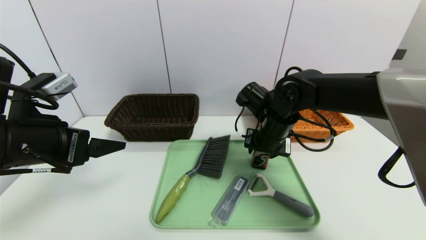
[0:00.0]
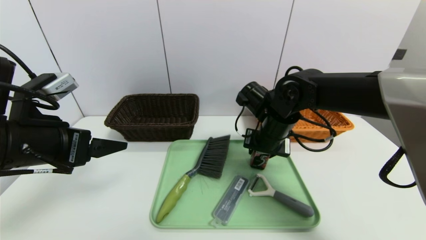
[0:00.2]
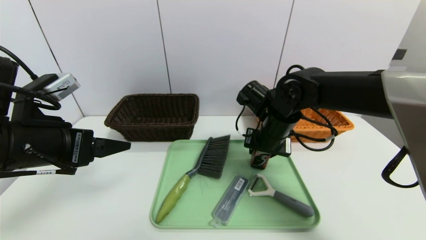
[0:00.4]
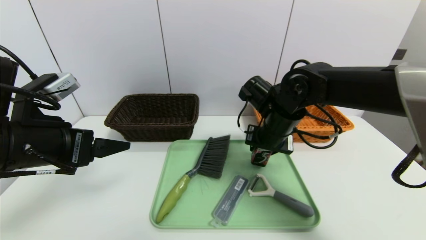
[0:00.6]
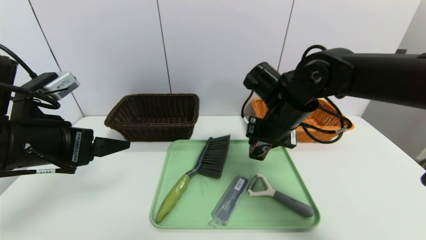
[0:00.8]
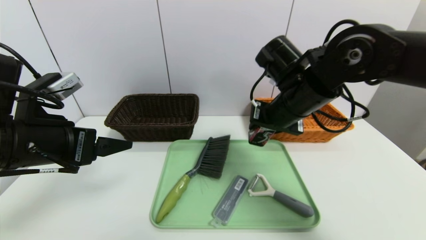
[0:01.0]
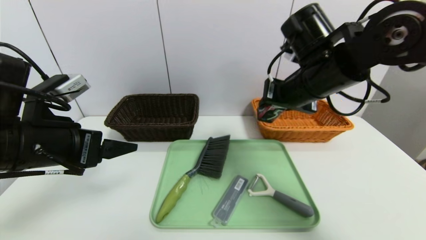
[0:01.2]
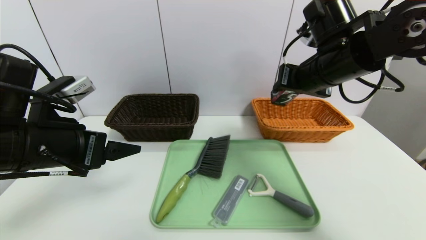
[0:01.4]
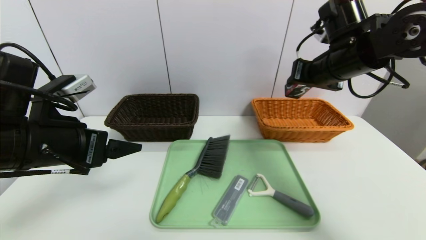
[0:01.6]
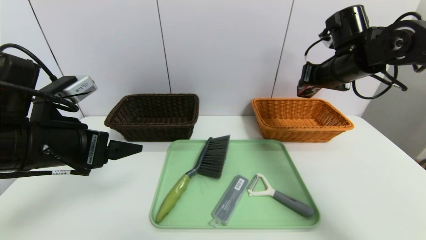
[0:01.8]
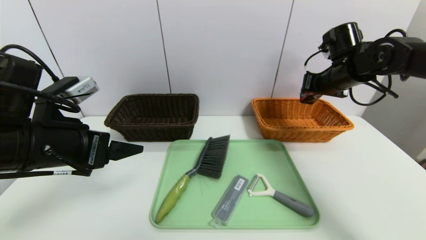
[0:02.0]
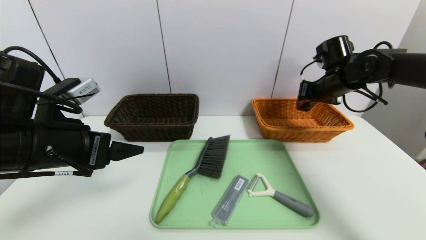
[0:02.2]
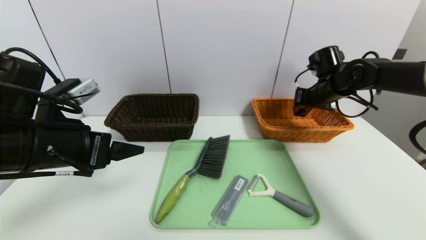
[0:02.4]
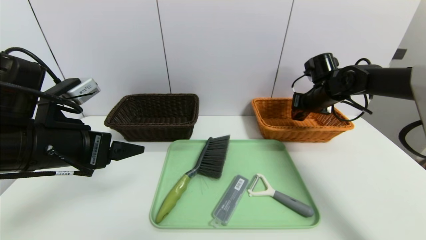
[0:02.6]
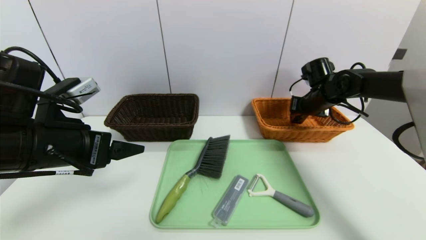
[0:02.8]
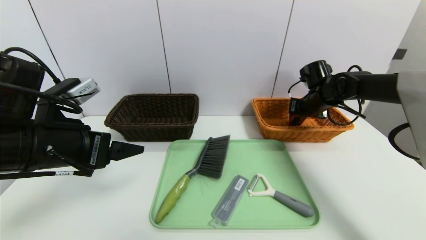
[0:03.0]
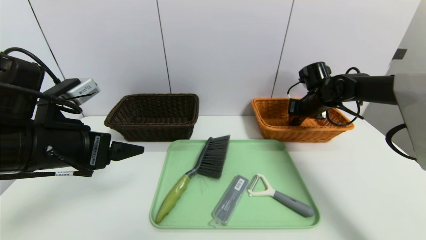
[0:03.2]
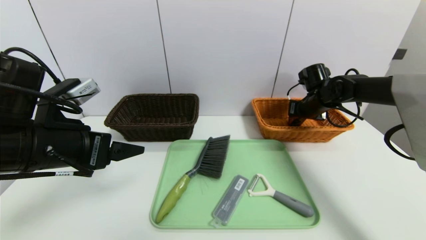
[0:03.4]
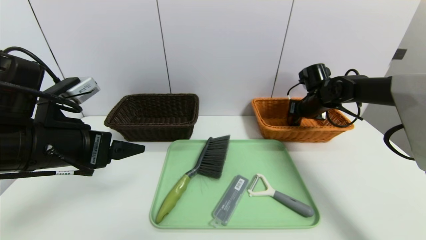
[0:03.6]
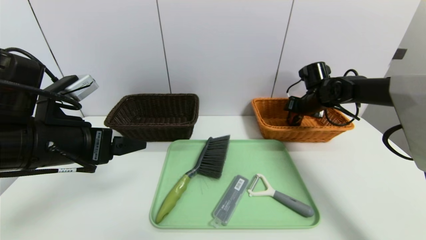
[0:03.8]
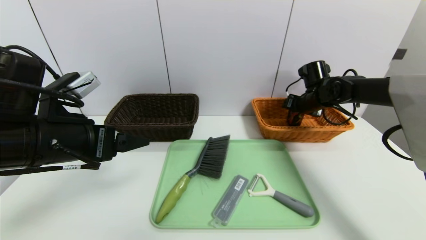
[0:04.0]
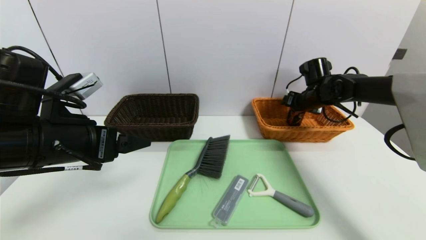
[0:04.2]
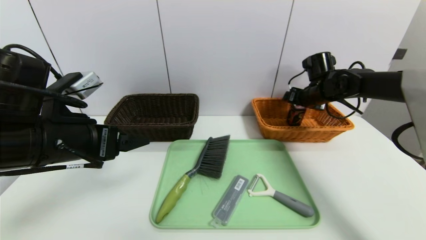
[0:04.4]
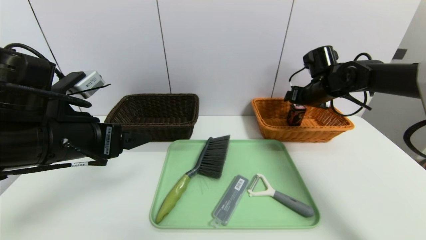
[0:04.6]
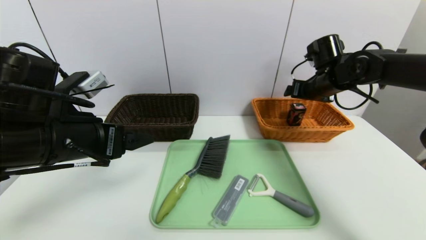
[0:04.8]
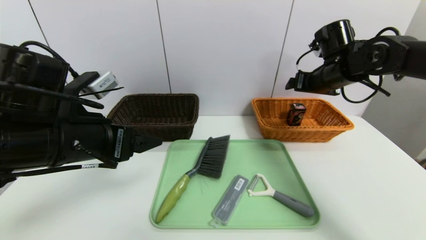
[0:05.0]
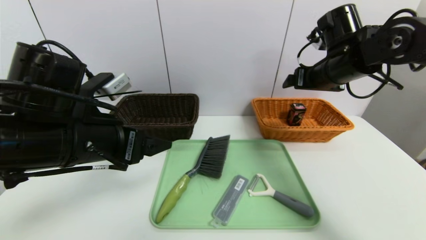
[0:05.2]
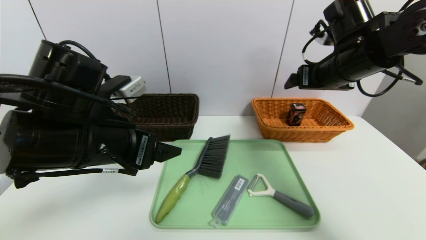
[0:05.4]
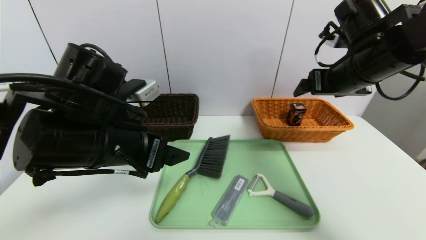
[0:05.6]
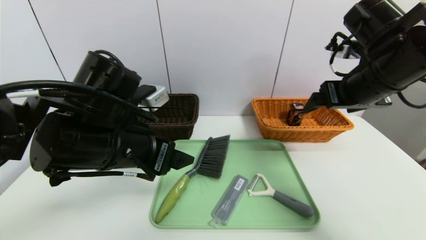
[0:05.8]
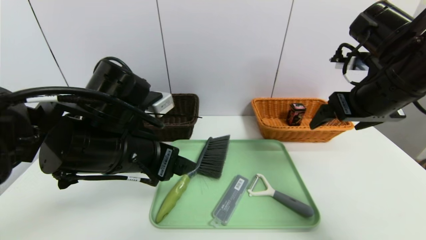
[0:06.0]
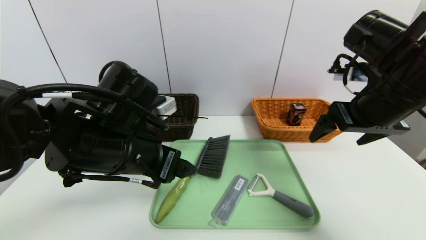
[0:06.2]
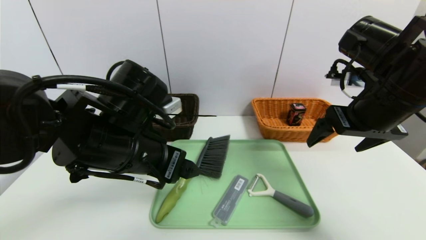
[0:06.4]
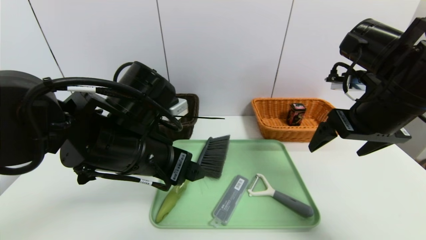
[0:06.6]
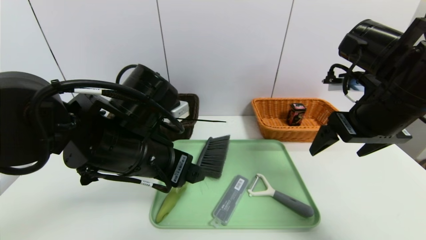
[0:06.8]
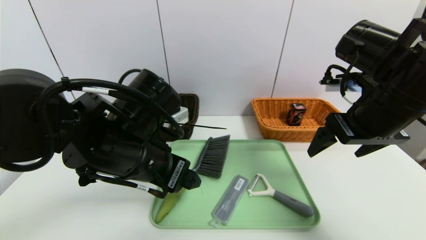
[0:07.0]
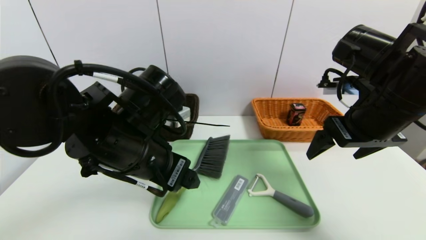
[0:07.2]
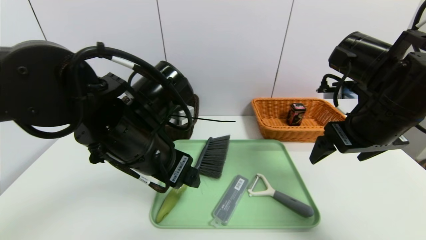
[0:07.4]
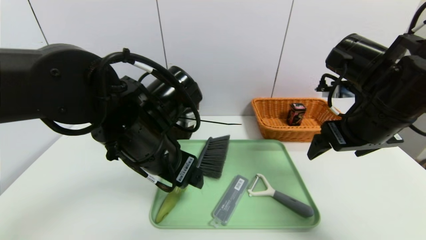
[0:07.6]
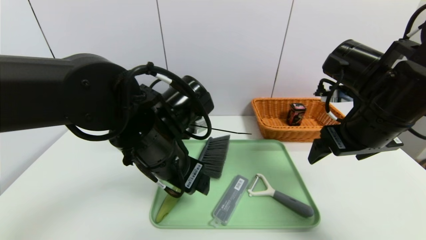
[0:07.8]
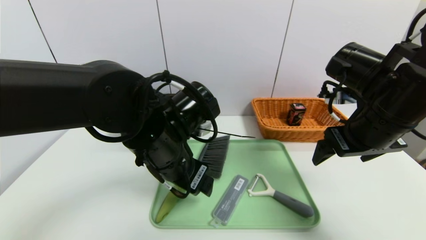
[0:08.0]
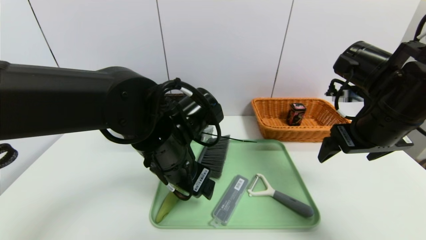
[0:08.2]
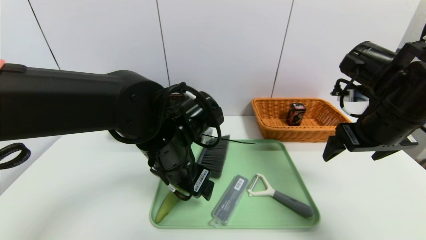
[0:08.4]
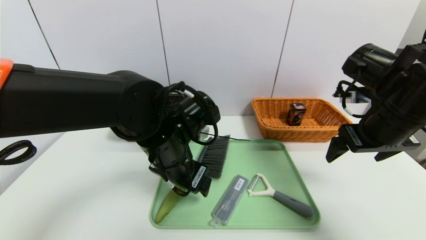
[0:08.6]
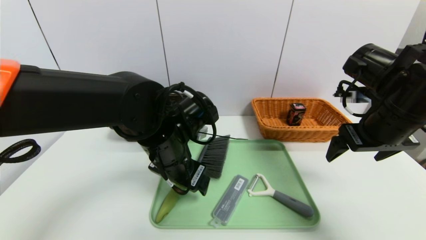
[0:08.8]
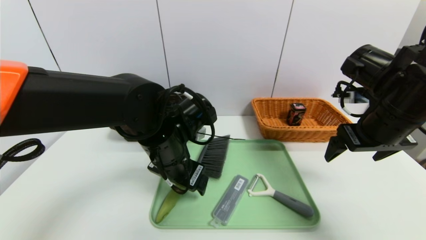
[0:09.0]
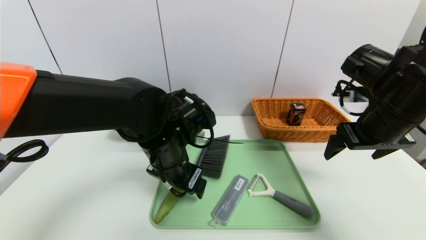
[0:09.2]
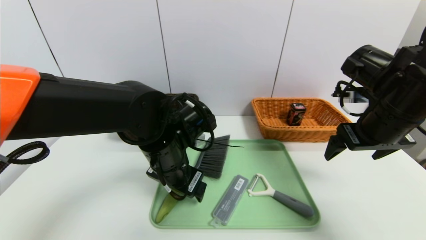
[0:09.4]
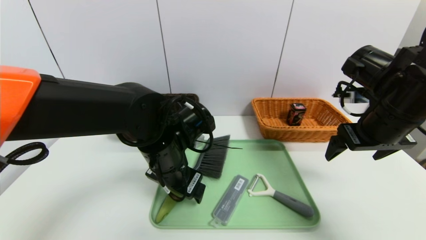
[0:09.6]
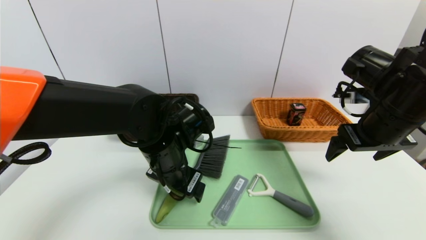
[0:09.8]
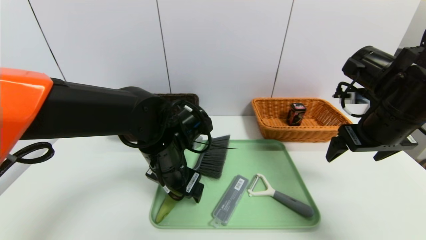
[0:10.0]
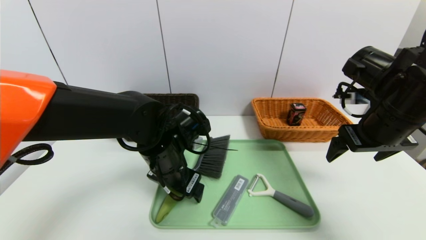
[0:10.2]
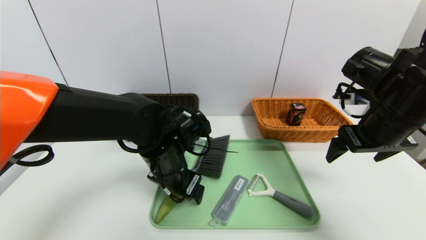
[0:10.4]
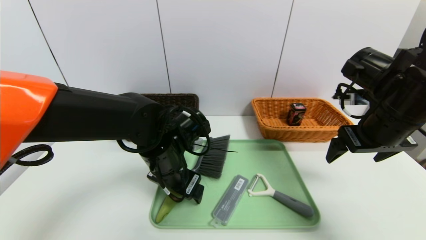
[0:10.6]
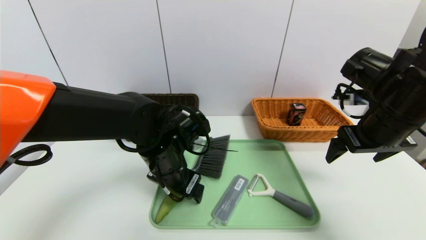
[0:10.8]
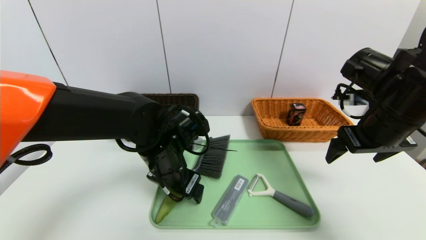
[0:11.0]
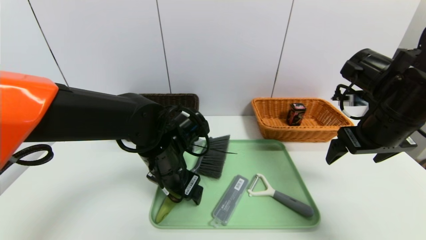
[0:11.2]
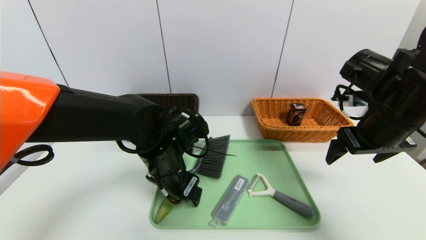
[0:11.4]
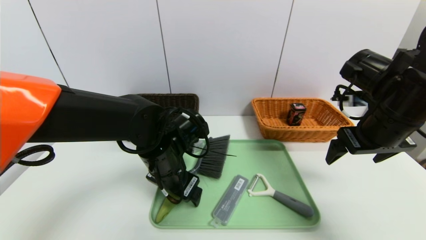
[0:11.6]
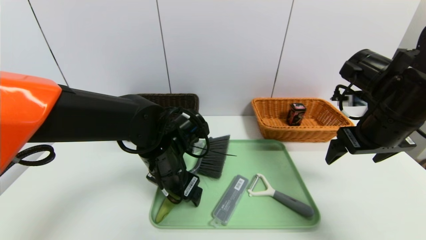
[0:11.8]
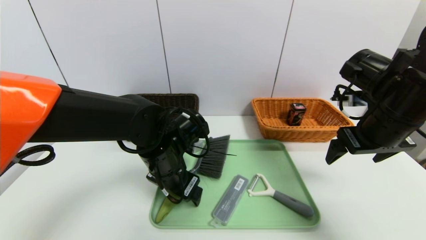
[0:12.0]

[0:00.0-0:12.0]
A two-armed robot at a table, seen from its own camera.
Task of the whole recording: place the food in the right basket with the right gripper, and place the non food items in the left basket with the left gripper.
0:00.0 to 0:01.6: The right gripper goes some 15 cm upward and to the right.
0:01.6 to 0:03.0: The right gripper moves downward, forward and to the right, about 20 cm.
0:03.0 to 0:04.4: The right gripper opens its fingers.
0:04.4 to 0:06.0: The left gripper moves to the right, some 10 cm; the right gripper moves backward and upward, roughly 25 cm.
0:07.6 to 0:09.0: The left gripper ends up some 5 cm from where it was.
0:09.0 to 0:10.4: There are only small adjustments of the grippers.
0:10.4 to 0:12.0: Neither gripper changes place.

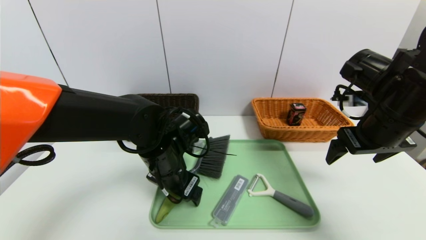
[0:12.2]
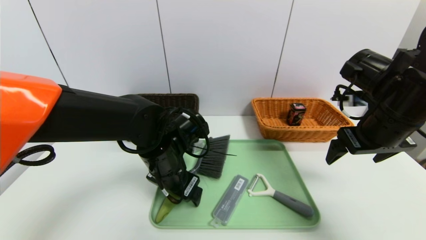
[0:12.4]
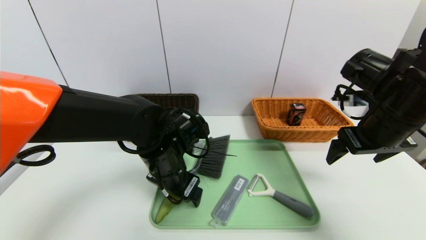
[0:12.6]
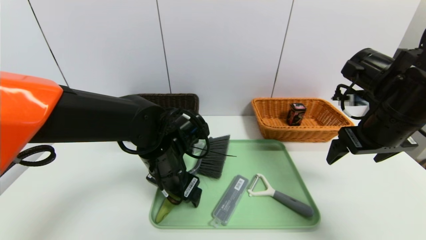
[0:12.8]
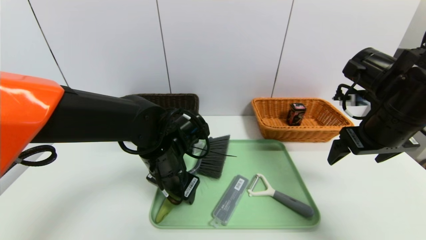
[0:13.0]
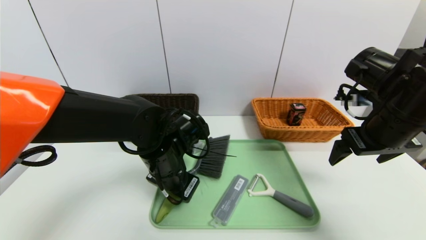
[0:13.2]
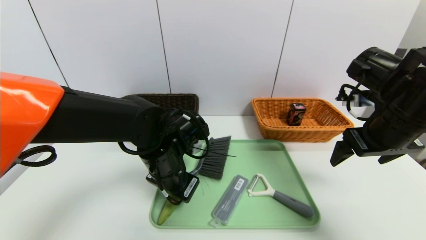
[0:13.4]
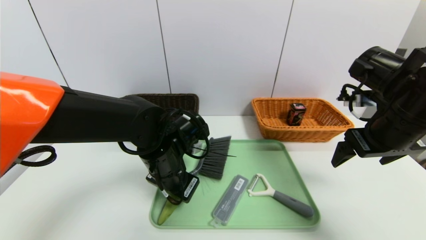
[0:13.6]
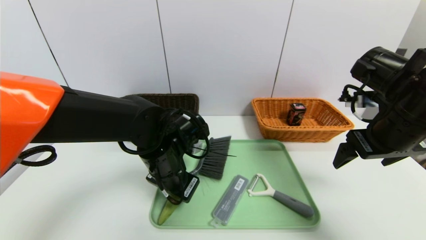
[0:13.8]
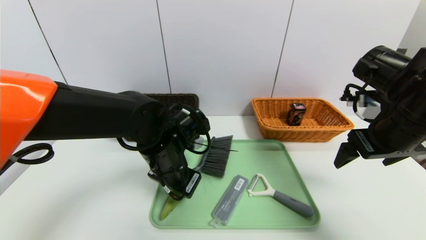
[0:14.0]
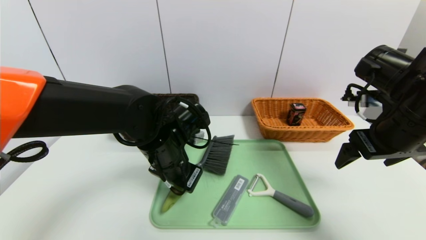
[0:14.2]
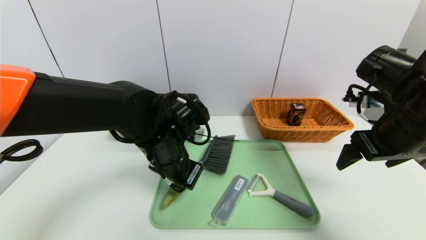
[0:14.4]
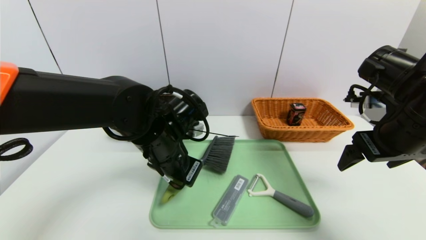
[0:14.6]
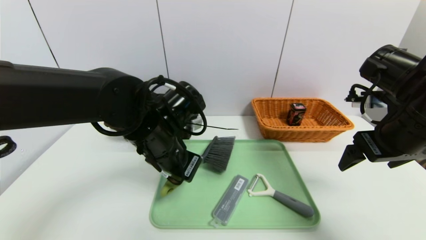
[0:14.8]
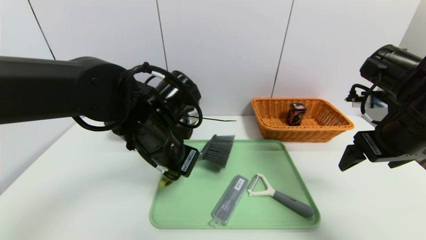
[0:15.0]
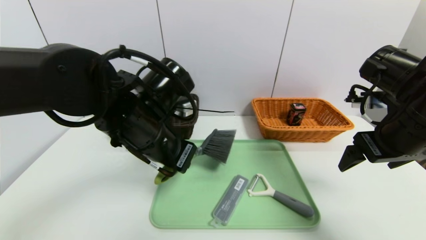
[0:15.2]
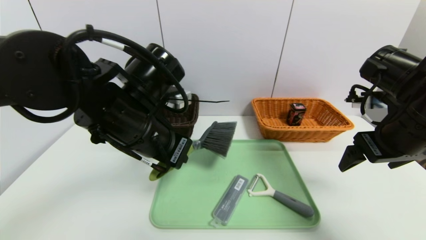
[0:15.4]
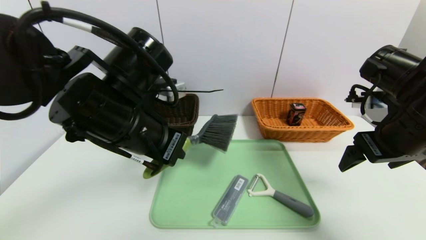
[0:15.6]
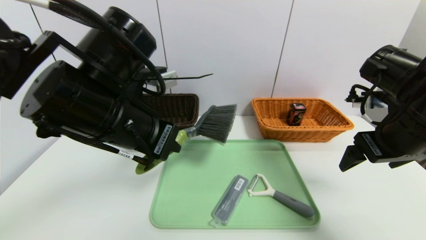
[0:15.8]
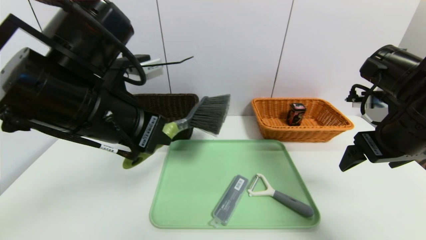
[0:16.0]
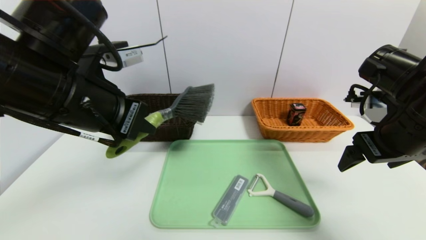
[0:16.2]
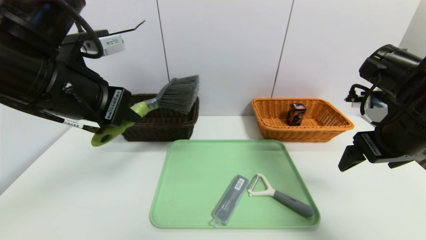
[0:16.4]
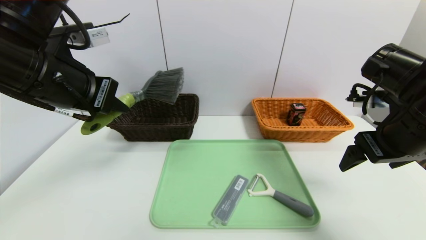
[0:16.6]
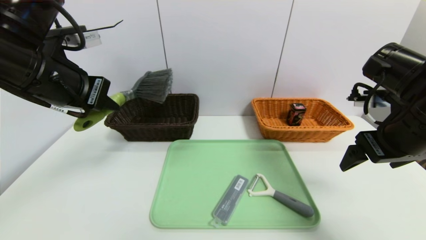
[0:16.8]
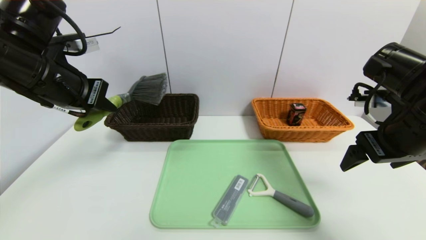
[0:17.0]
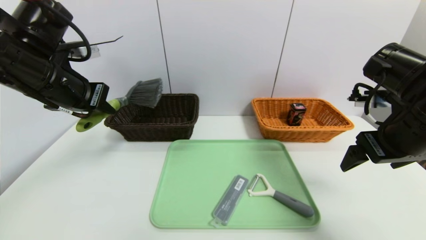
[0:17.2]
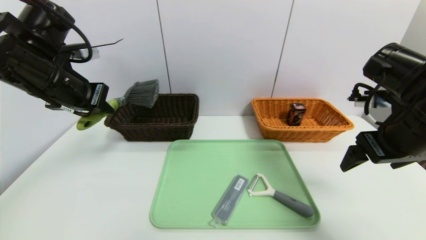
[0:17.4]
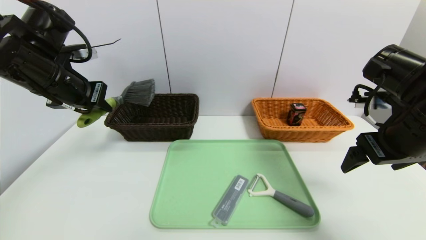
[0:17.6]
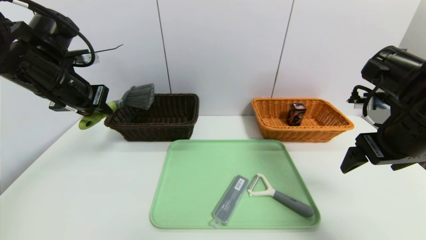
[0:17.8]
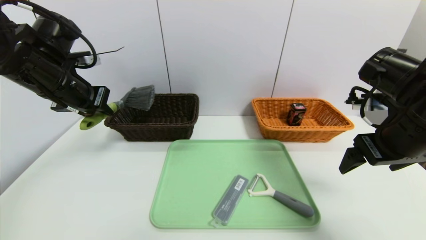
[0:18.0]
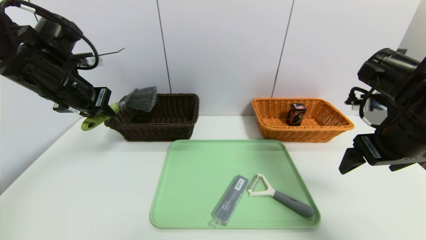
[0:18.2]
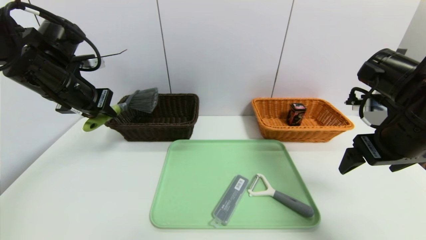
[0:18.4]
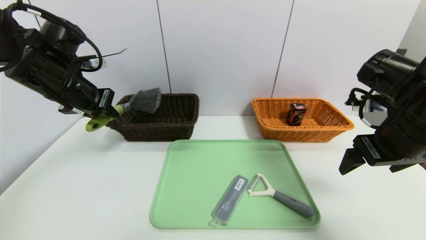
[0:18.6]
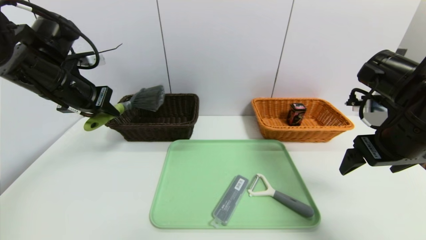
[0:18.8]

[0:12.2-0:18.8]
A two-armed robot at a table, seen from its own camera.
Task of the whole recording: place the food in the right basket with the right gripper, and place the non food items in the left basket with the left gripper.
0:12.2 to 0:13.8: The left gripper closes up.
0:13.8 to 0:15.4: The left gripper is displaced upward by roughly 10 cm.
0:15.4 to 0:17.2: The left gripper travels to the left by approximately 15 cm.
0:17.2 to 0:18.8: The grippers move only a little.
